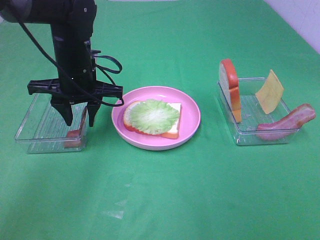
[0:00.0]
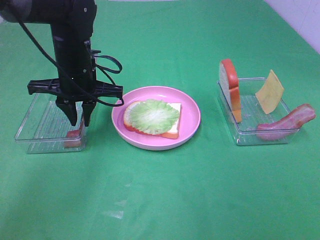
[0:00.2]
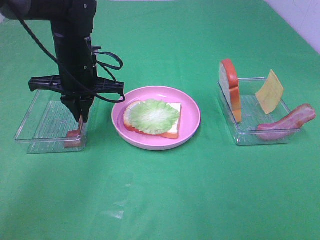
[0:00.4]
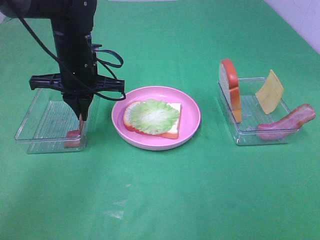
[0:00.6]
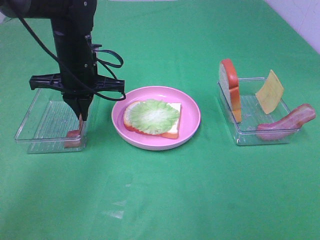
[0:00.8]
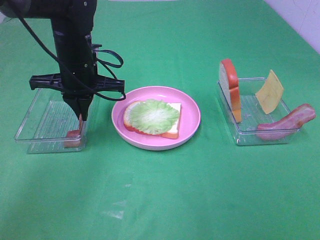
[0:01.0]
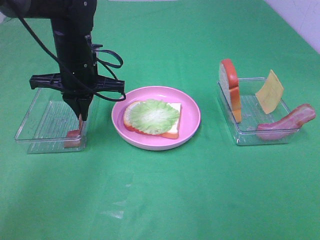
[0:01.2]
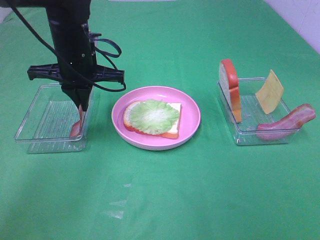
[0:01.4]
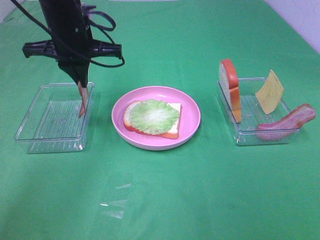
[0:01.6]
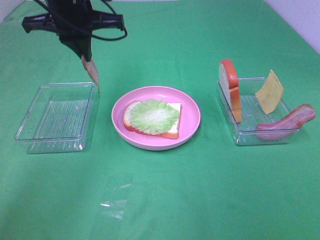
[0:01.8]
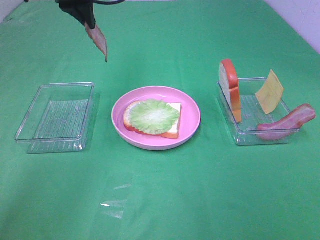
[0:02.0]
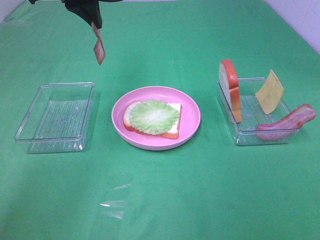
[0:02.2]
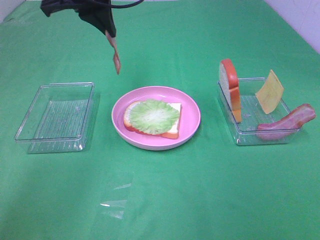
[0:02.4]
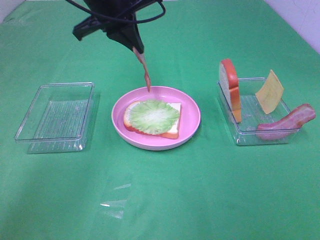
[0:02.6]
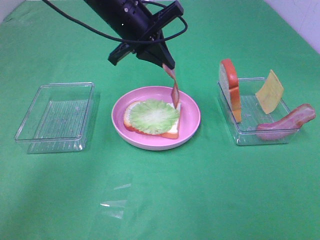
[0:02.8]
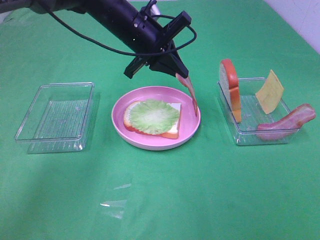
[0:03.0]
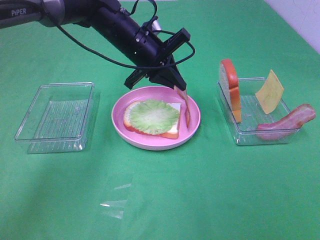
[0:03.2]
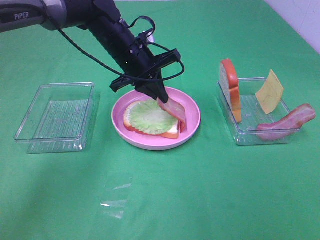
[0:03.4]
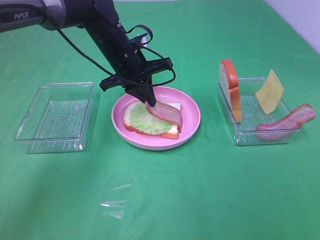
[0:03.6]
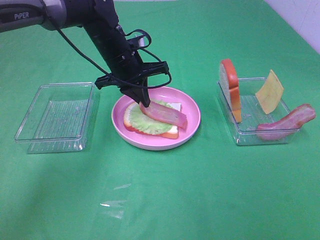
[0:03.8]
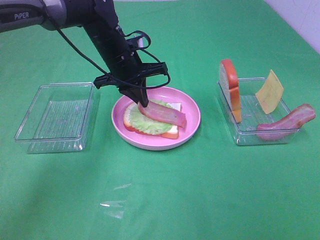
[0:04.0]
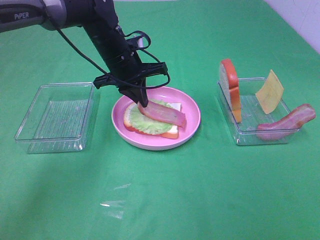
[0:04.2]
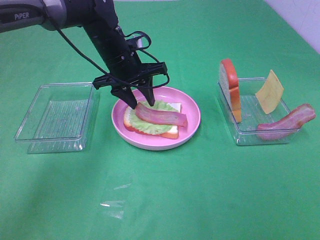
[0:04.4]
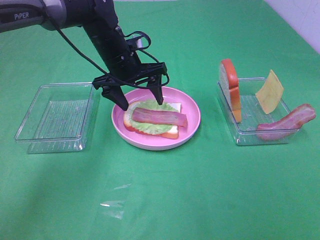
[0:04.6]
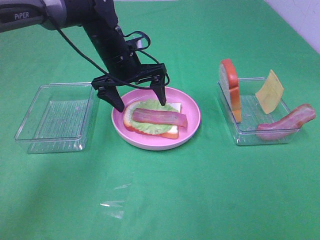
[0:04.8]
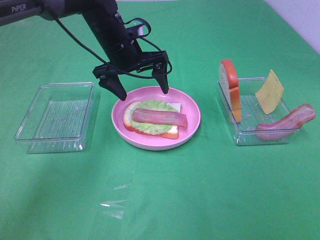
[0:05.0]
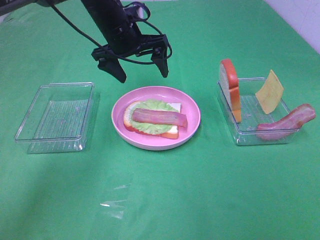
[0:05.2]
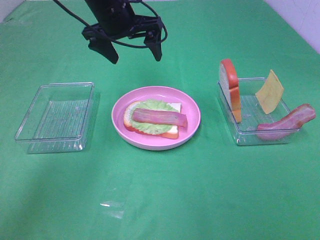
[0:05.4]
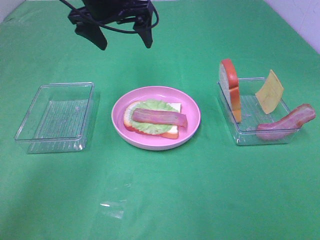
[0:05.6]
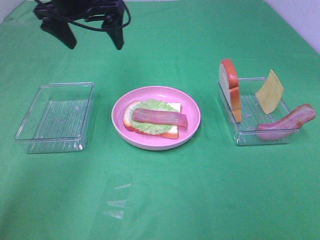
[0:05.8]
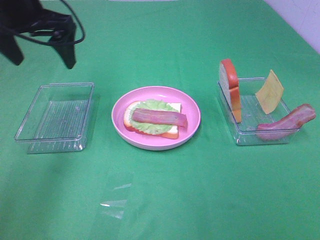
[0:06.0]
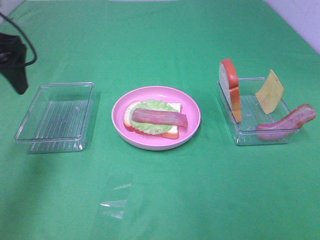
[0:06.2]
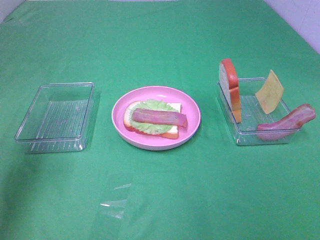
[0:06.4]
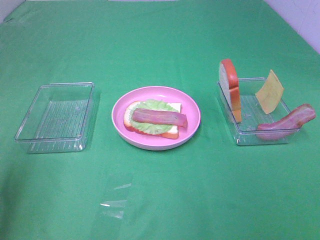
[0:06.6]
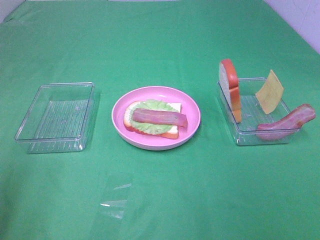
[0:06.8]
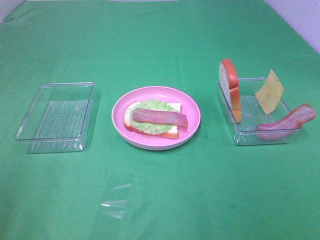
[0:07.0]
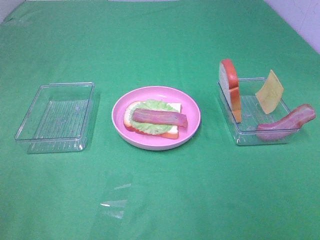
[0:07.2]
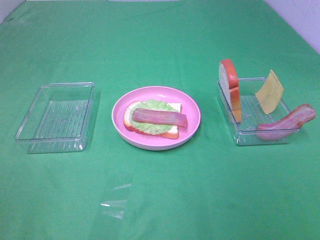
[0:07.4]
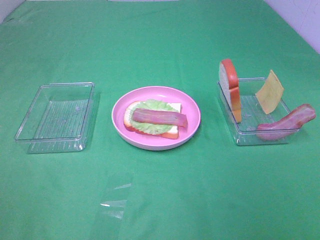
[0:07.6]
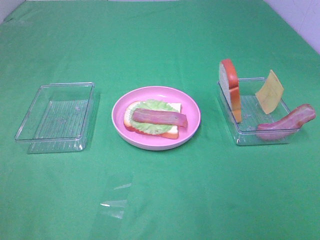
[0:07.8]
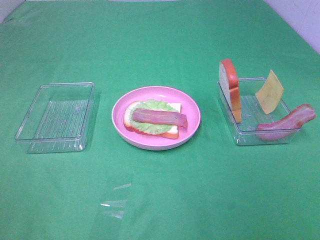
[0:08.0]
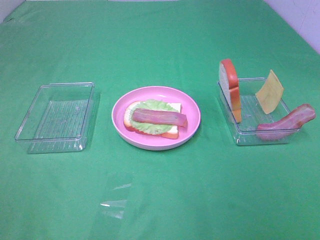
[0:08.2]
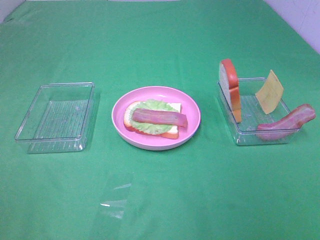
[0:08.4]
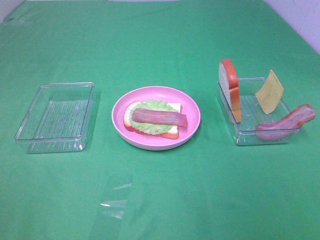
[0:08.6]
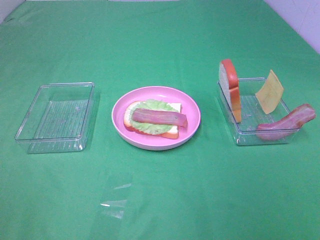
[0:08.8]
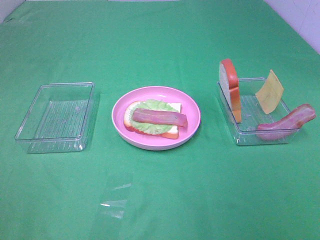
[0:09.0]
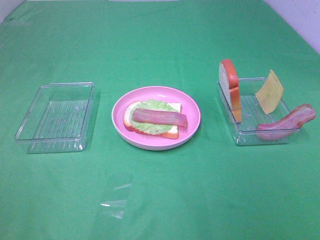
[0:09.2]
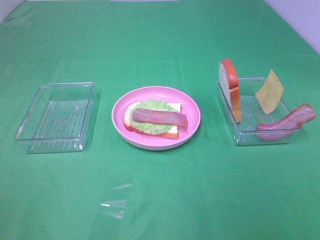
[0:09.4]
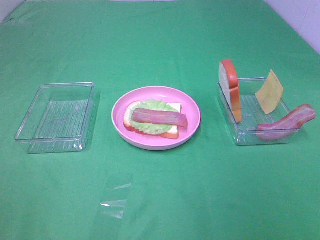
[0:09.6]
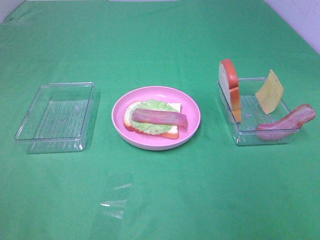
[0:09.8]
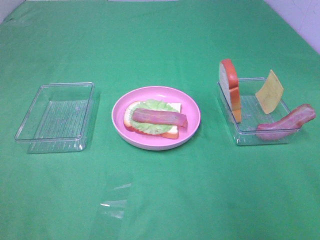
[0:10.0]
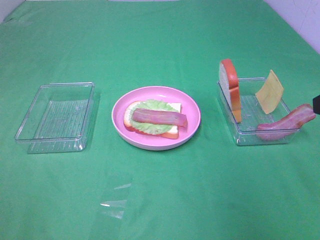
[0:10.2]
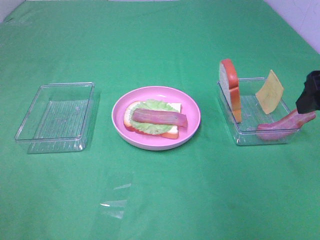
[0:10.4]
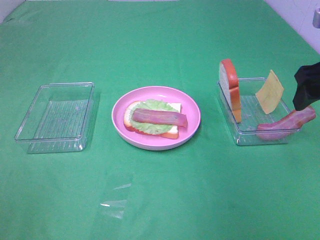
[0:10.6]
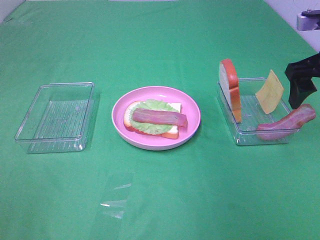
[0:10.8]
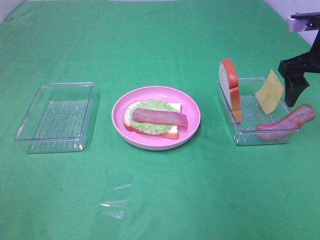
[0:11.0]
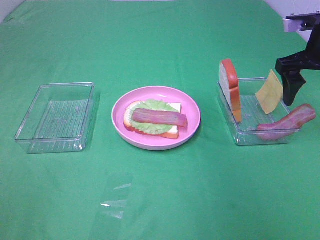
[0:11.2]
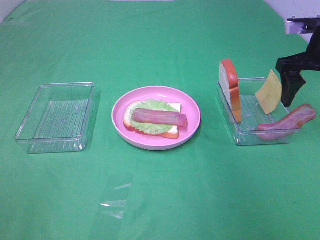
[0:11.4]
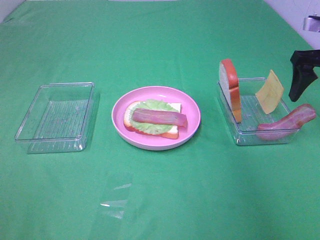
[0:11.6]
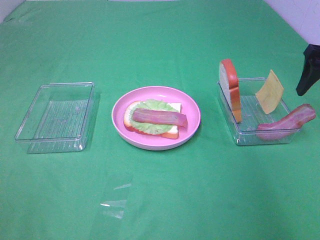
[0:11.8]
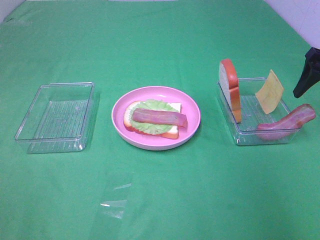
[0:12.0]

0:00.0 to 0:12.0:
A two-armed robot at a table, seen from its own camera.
Task of the whole recording: Make sandwiches.
Step, 0:01.4 to 0:04.6: Left hand:place bacon on lettuce slice.
0:00.0 to 0:01.6: The left gripper moves upward, some 5 cm, and closes up.
0:01.6 to 0:03.0: The left gripper shifts some 10 cm to the right, and reaches about 10 cm upward, then returns.
0:03.0 to 0:04.4: The left gripper heads downward, covering some 5 cm, and opens its fingers.
0:04.4 to 0:06.0: The left gripper goes approximately 20 cm to the left, upward and backward, and opens.
0:06.0 to 0:07.6: The left gripper is displaced backward by roughly 40 cm.
0:07.6 to 0:09.0: Neither gripper changes place.
0:09.0 to 0:10.4: The right gripper shifts about 25 cm forward.
0:10.4 to 0:12.0: The right gripper heads forward, to the right and downward, covering some 15 cm.

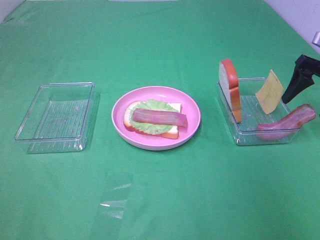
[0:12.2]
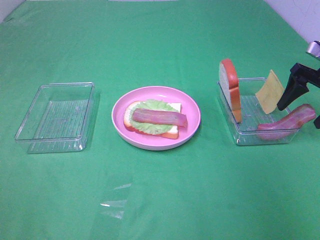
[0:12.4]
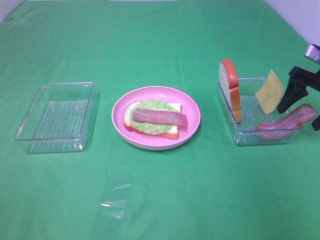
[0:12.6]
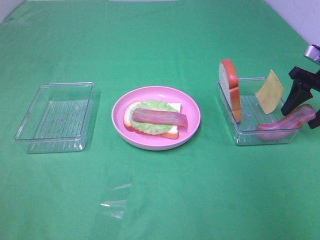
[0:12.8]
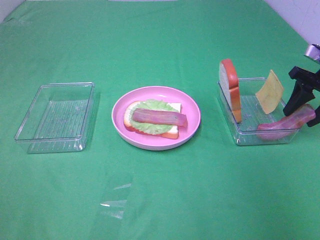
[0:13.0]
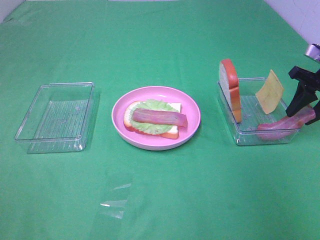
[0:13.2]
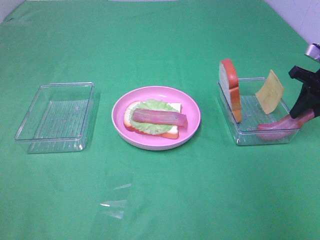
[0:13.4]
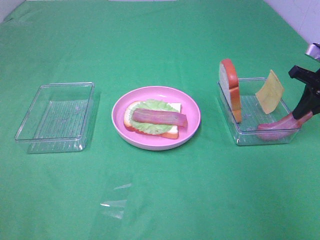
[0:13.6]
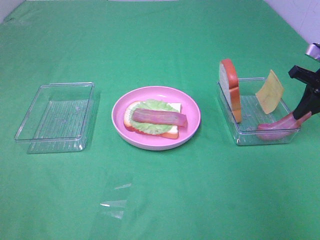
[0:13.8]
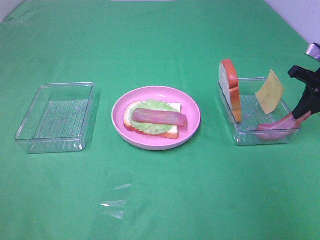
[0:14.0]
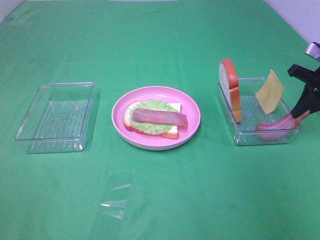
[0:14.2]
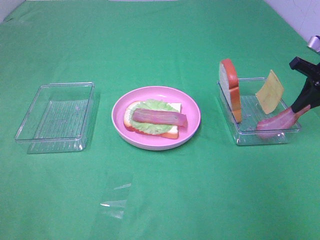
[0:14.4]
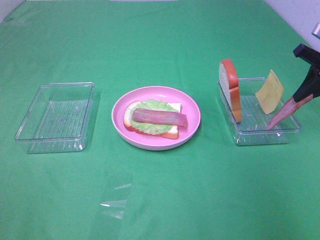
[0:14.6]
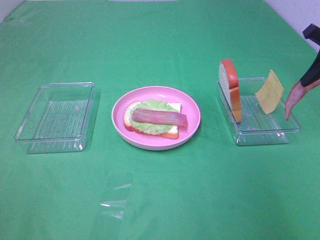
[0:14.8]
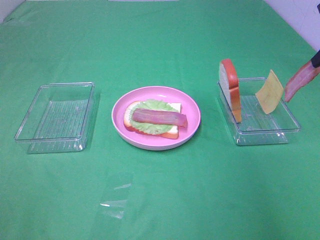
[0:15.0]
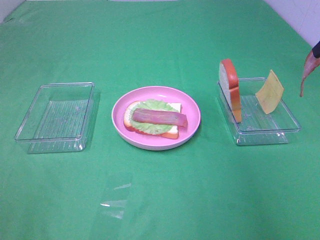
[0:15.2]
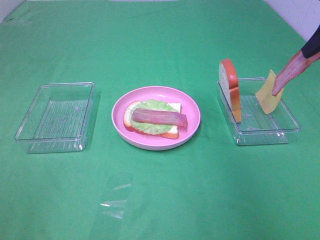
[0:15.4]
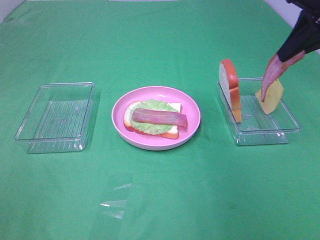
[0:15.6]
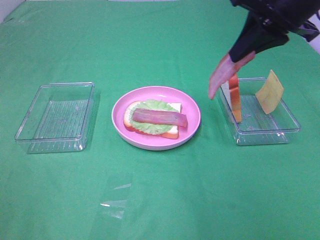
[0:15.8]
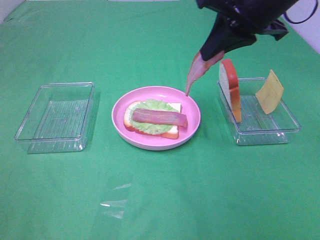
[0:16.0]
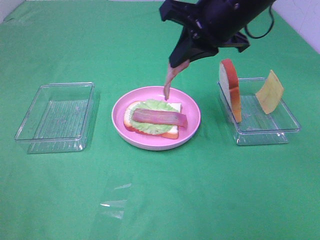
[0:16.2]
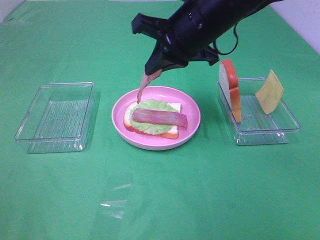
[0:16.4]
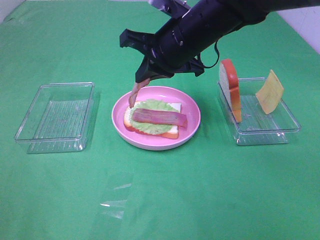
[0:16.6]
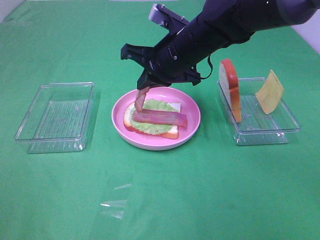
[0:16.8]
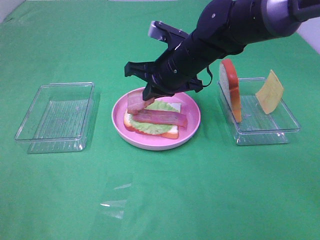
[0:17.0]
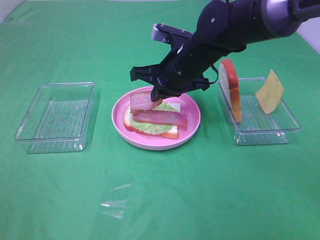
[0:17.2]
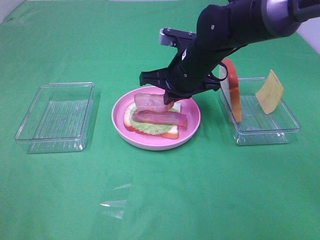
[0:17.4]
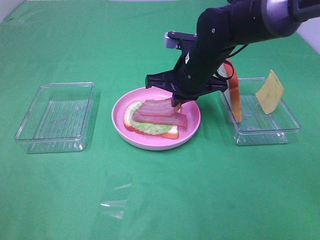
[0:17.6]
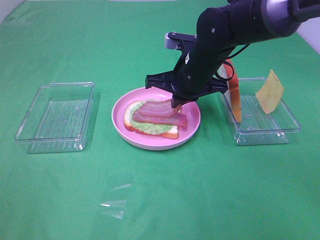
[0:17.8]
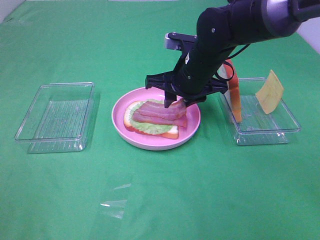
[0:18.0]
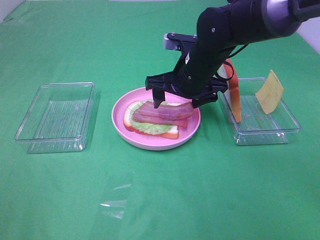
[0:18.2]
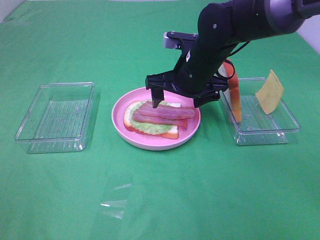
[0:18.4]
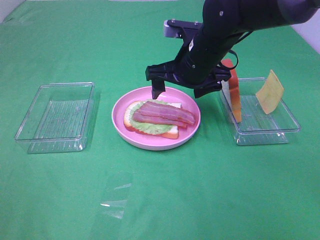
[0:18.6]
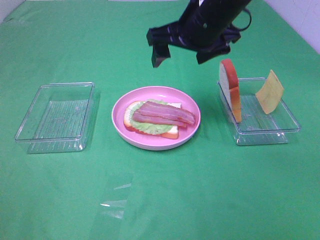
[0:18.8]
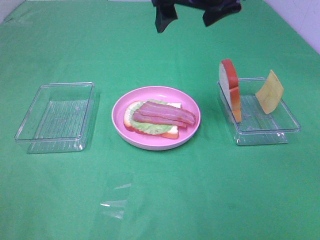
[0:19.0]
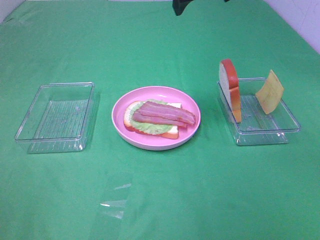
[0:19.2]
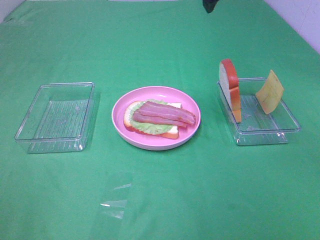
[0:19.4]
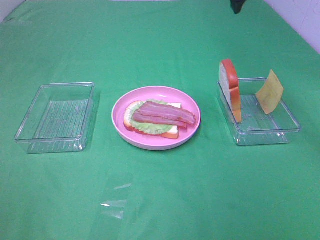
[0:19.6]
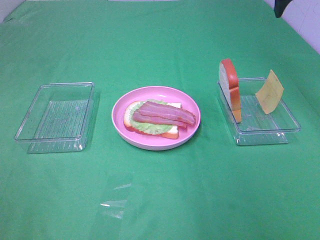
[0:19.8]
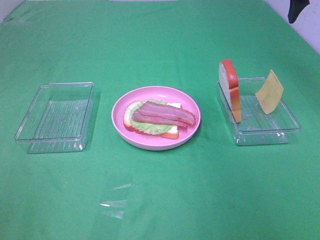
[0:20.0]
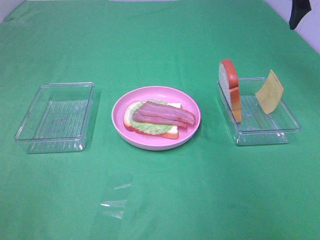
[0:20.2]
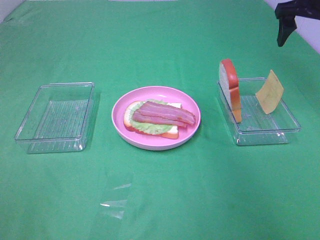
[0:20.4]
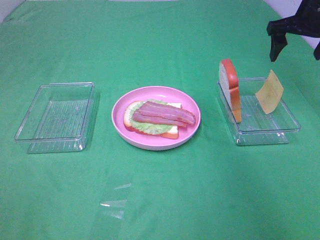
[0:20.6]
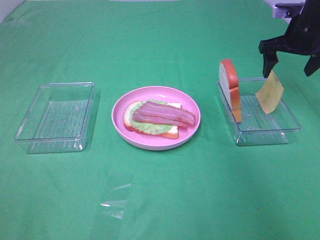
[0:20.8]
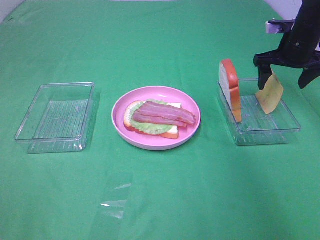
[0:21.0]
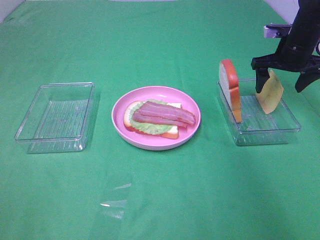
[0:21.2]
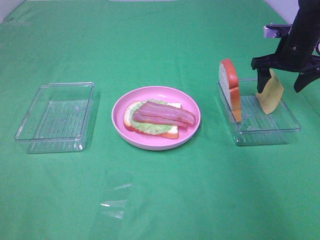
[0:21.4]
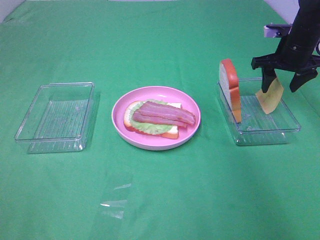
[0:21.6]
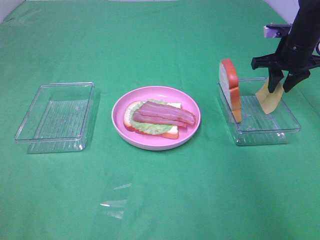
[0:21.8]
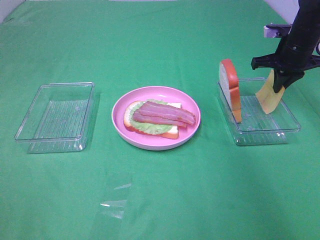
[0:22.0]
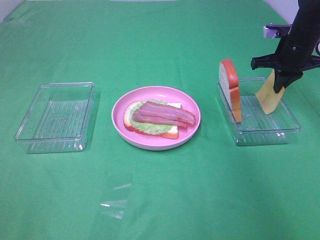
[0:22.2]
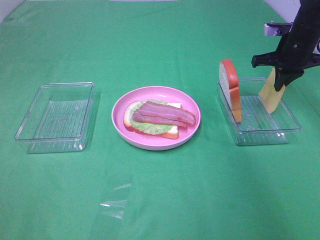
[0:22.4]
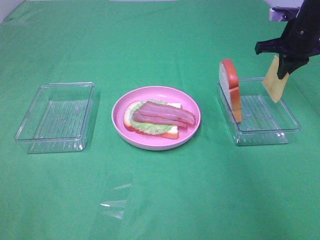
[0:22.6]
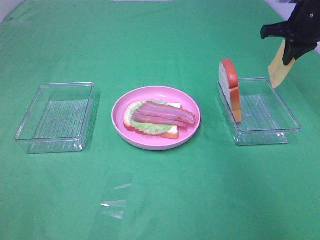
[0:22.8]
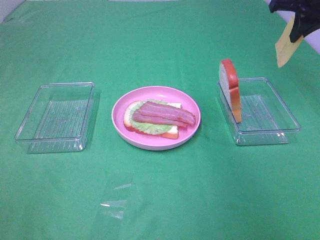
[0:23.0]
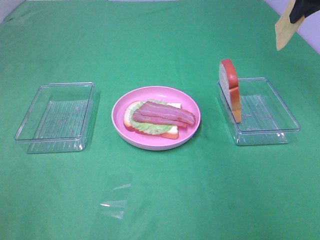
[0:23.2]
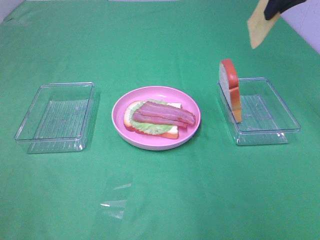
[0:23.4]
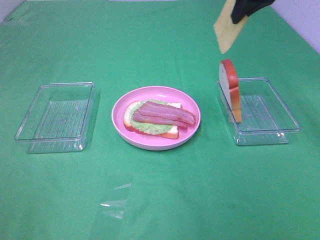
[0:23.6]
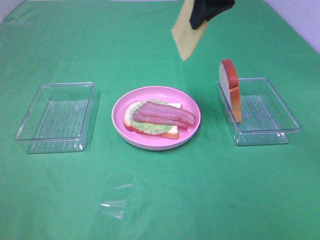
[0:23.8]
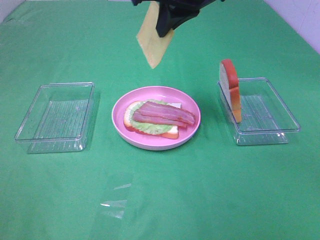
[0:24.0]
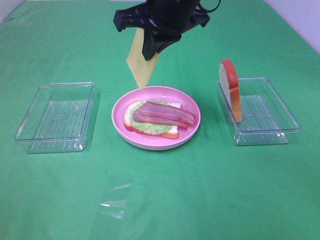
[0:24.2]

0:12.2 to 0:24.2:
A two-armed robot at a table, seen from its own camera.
Task of the whole recording: Make sandwiches.
Step, 0:12.2 to 0:14.4: Right hand:grab the bacon.
Step, 0:14.6 to 0:18.6: Right hand:place bacon on lettuce slice.
Step, 0:18.8 to 0:22.2: Right hand:grab the cheese slice.
0:12.2 to 0:13.8: The right gripper closes up.
0:13.8 to 0:15.2: The right gripper moves upward, approximately 15 cm.
0:15.2 to 0:16.6: The right gripper goes approximately 25 cm to the left.
0:16.6 to 0:18.2: The right gripper heads downward, covering roughly 5 cm, and opens up.
0:18.2 to 0:19.8: The right gripper goes roughly 25 cm to the right and upward.
0:19.8 to 0:21.2: The right gripper is displaced downward by approximately 20 cm.
0:21.2 to 0:22.6: The right gripper closes up.
0:22.6 to 0:24.2: The right gripper heads to the left, covering roughly 25 cm.
